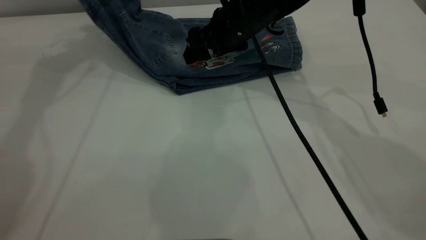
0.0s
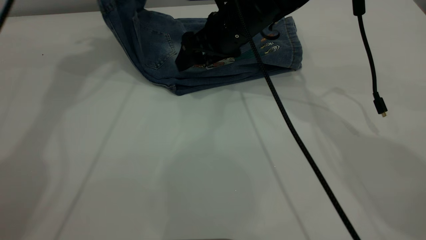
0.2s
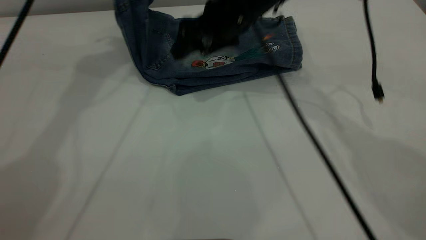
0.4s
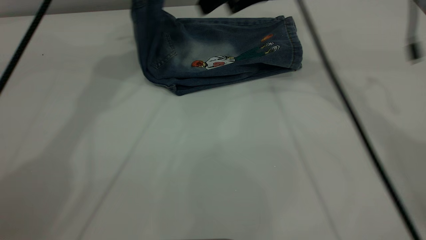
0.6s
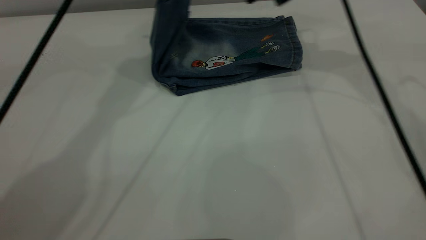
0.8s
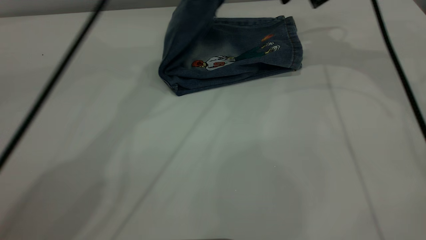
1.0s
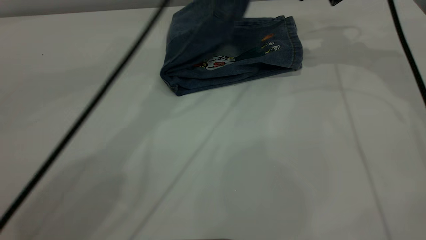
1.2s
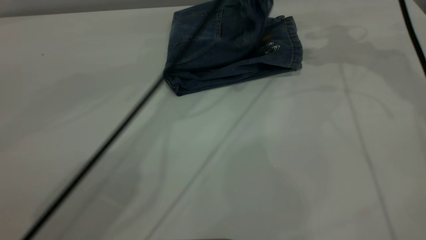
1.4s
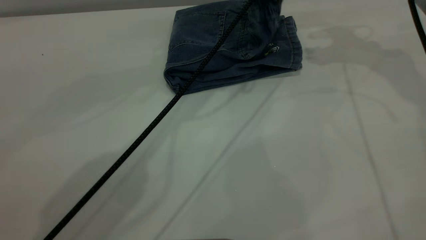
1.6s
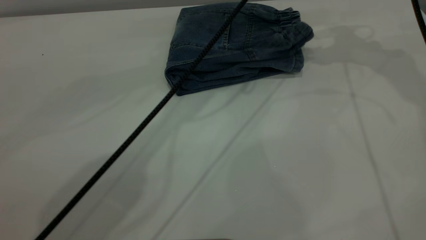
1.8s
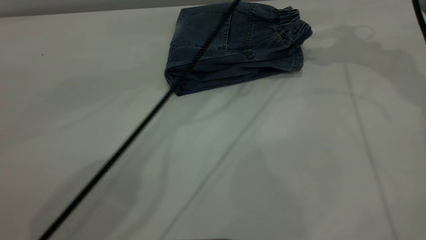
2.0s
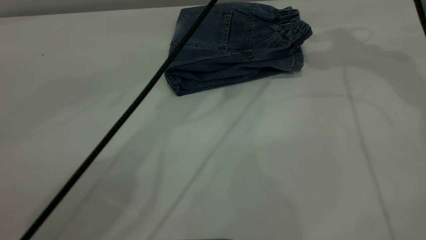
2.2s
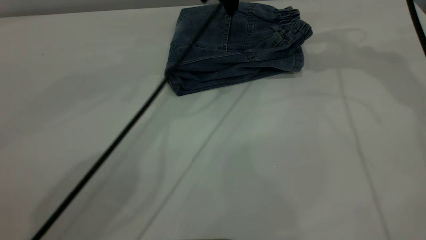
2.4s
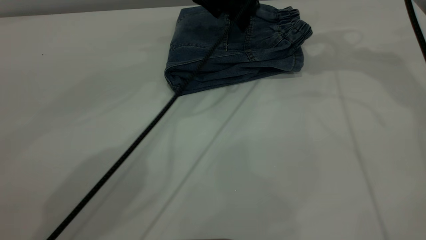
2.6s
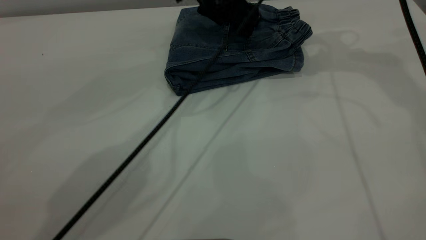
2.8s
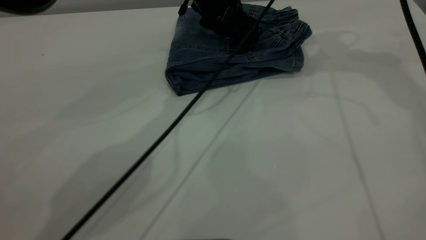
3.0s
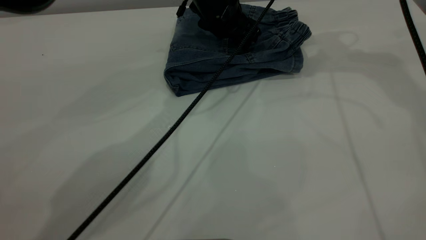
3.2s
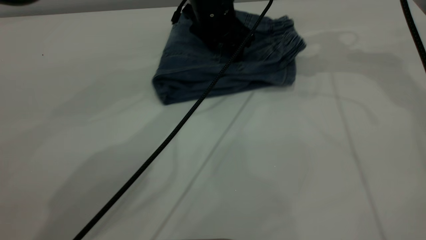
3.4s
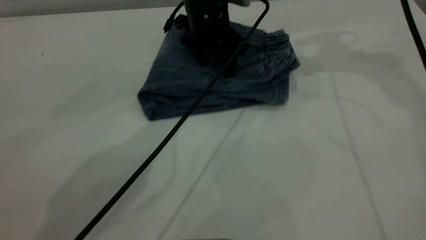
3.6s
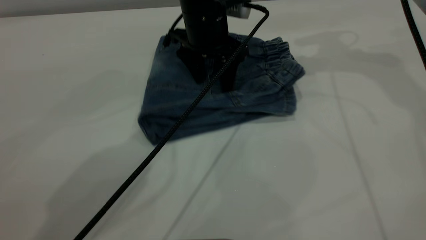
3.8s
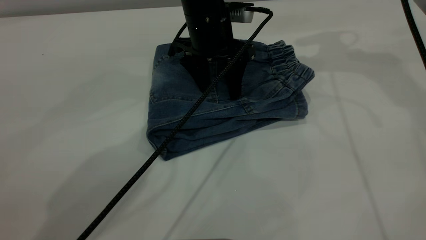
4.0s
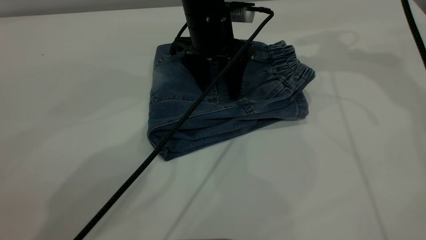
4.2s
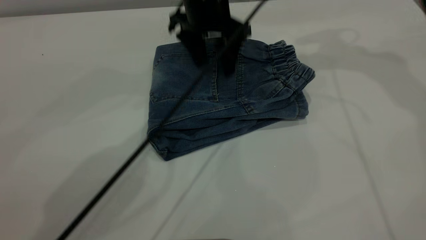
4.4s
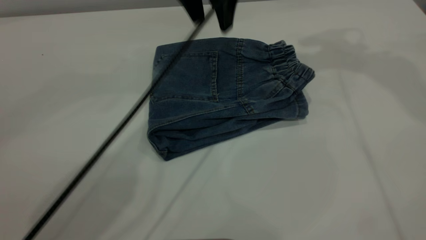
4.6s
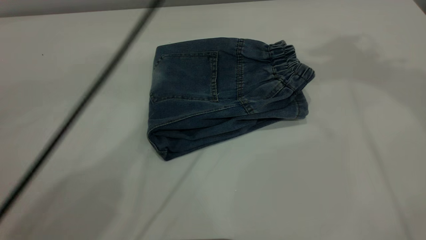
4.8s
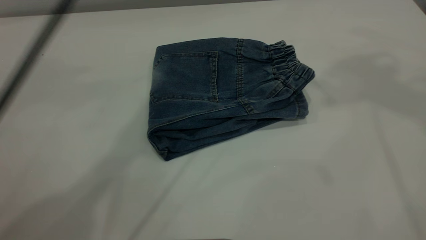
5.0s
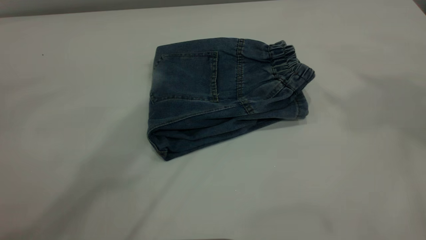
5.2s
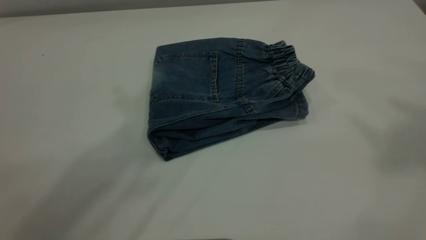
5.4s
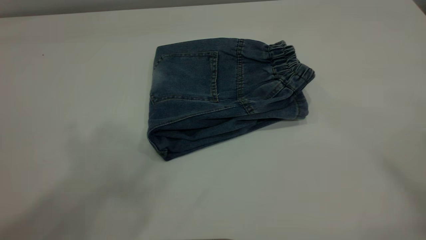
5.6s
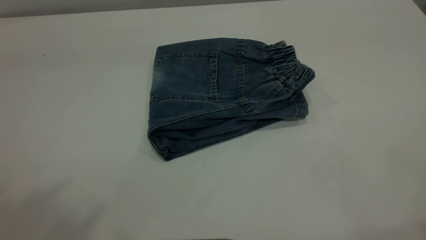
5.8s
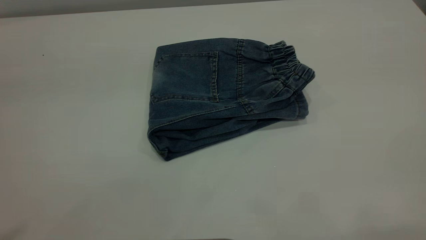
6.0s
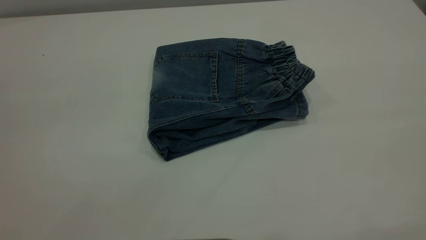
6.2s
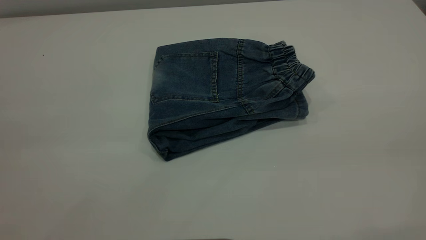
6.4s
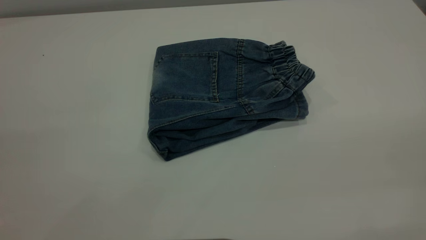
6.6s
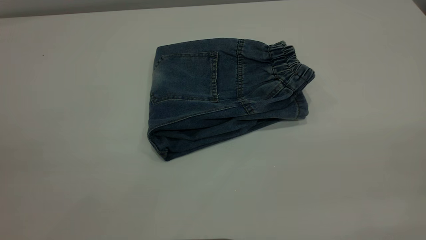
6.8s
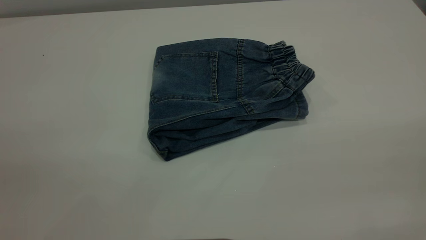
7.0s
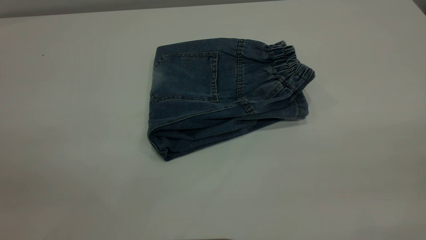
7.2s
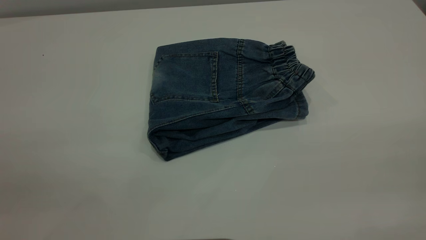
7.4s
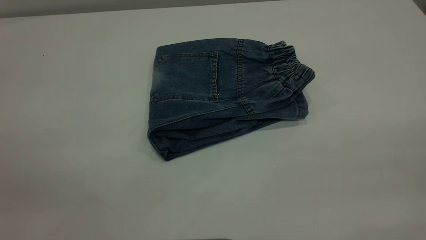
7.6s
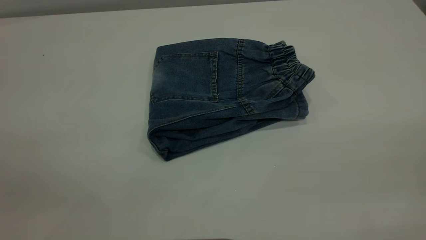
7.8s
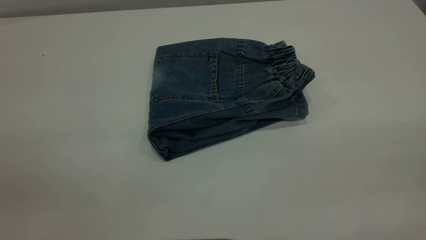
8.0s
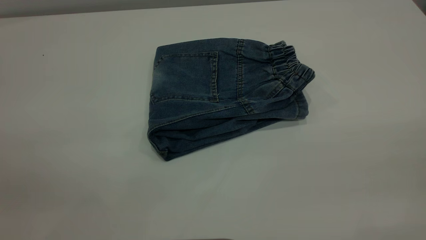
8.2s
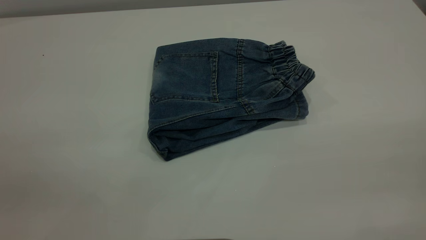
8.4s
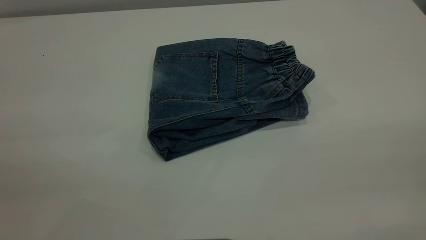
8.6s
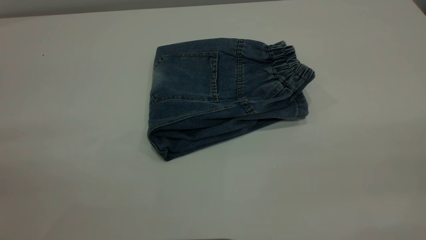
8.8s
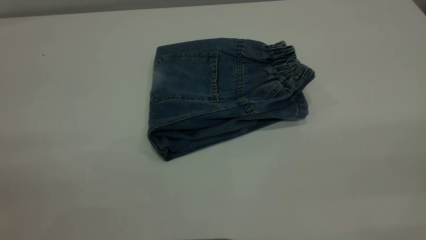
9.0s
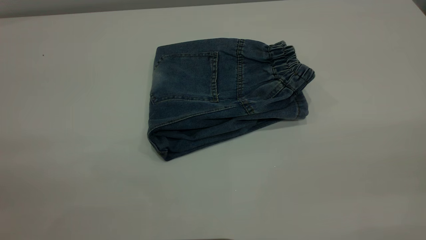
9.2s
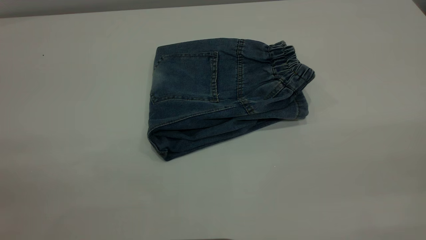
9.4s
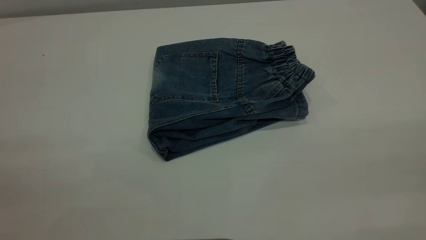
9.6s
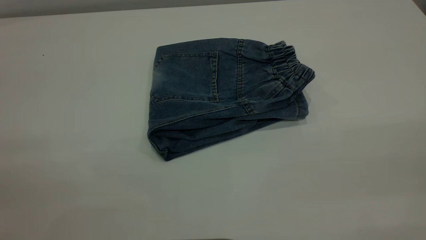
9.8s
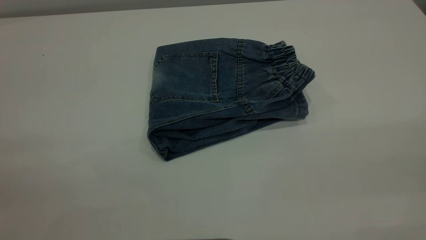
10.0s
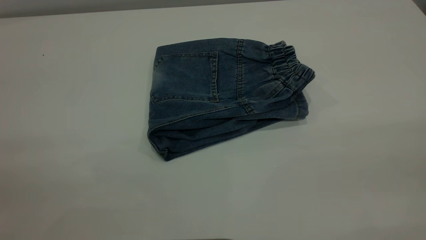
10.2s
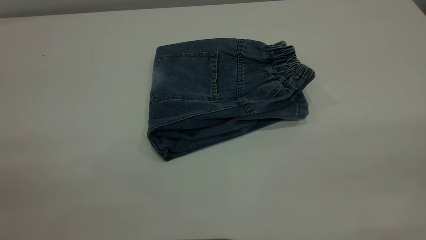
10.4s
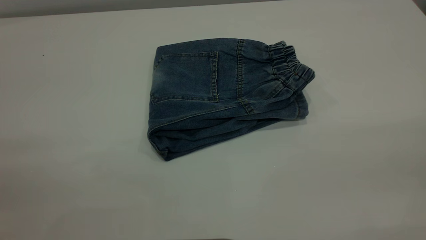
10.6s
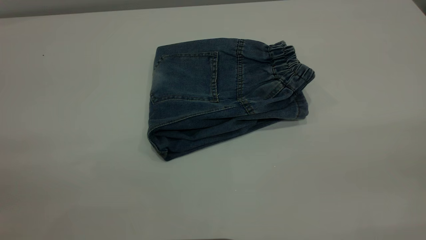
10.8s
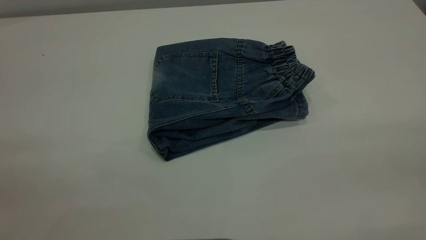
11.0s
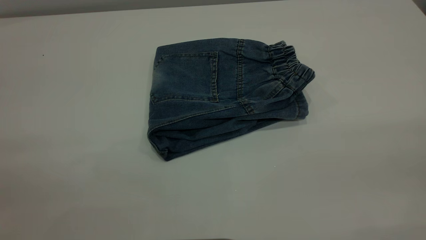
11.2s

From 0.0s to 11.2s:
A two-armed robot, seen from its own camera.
Step, from 0.0s to 2.0s: Fold the pants from left to right.
From 0.0s to 1.6s: The right gripper moves to the right and upward, some 25 cm; the left gripper goes approximately 30 cm to the right.
From 1.6s to 3.2s: The left gripper is displaced downward by about 10 cm, and opens its fingers.
From 3.2s to 4.8s: Both grippers travel together upward, approximately 20 cm.
From 4.8s to 6.4s: The left gripper moves backward and to the left, about 50 cm.

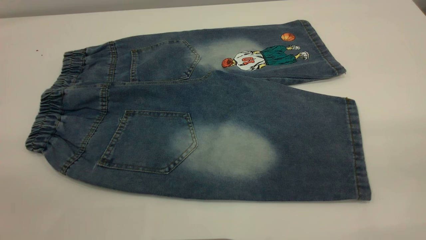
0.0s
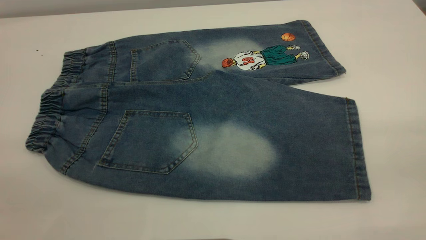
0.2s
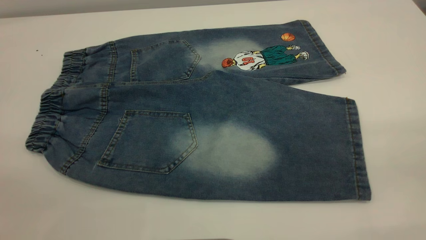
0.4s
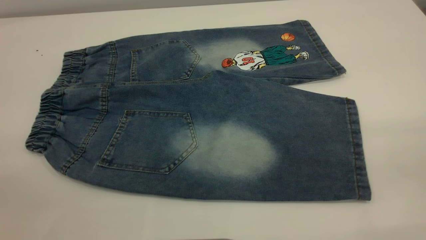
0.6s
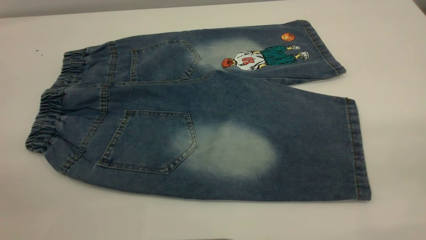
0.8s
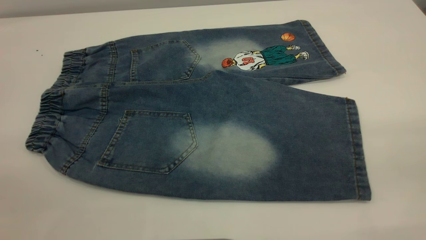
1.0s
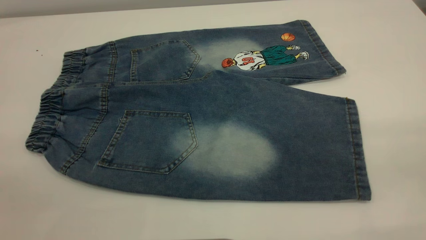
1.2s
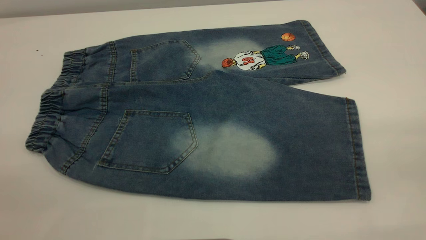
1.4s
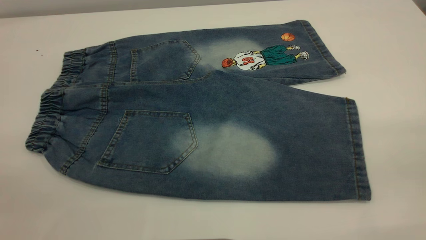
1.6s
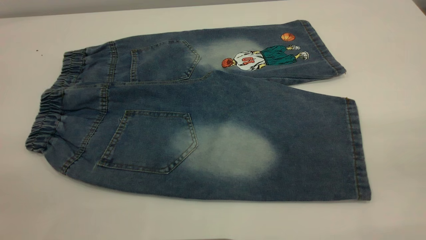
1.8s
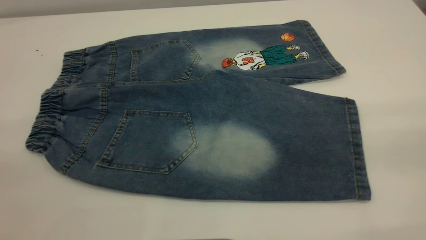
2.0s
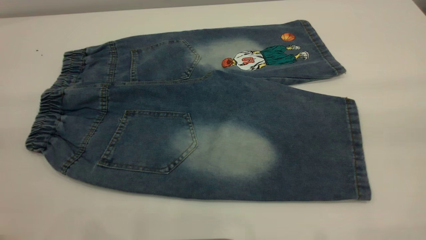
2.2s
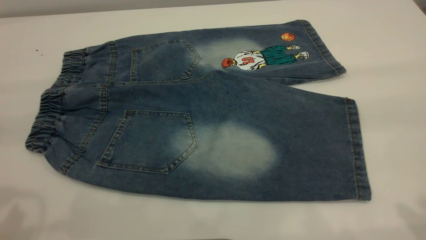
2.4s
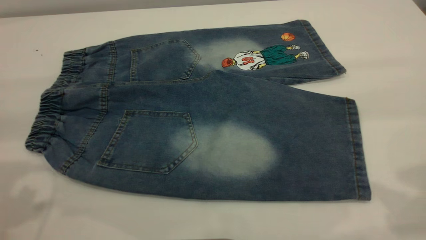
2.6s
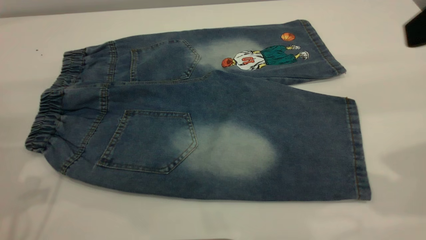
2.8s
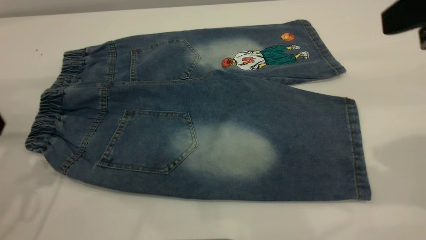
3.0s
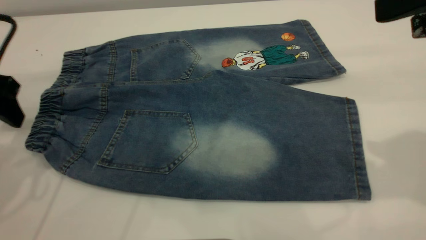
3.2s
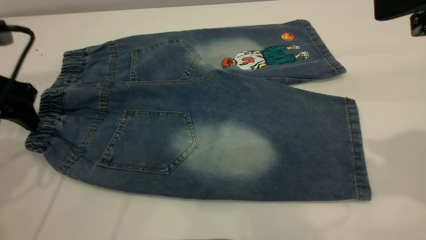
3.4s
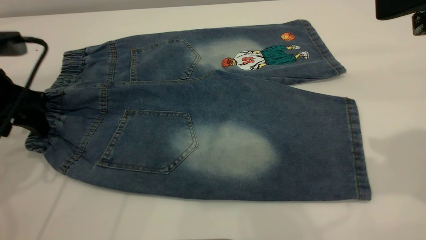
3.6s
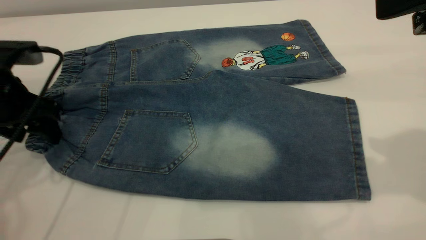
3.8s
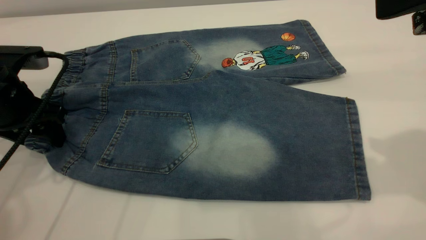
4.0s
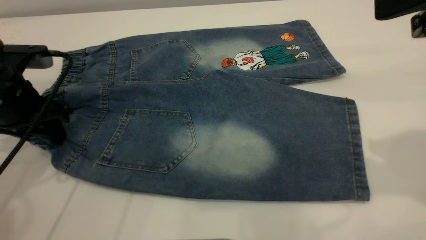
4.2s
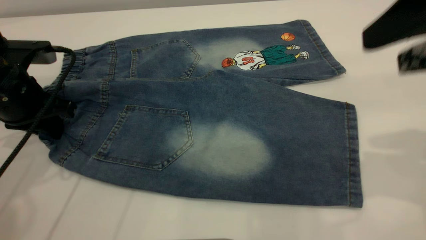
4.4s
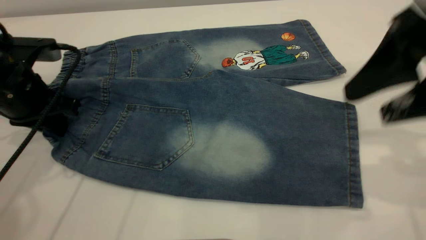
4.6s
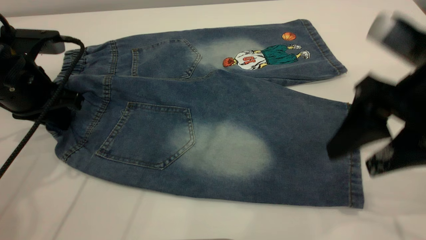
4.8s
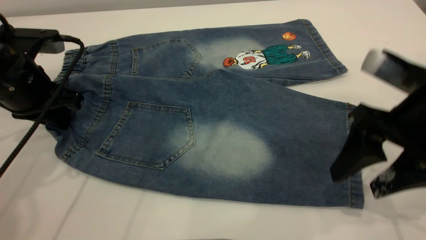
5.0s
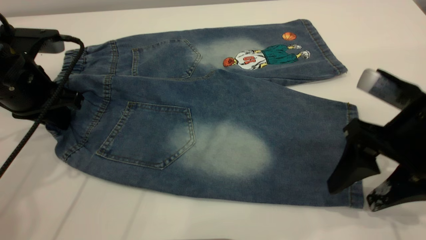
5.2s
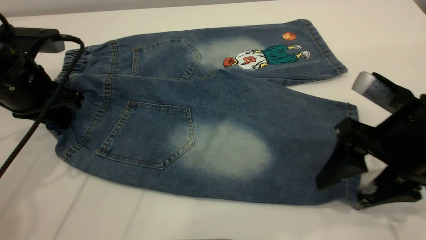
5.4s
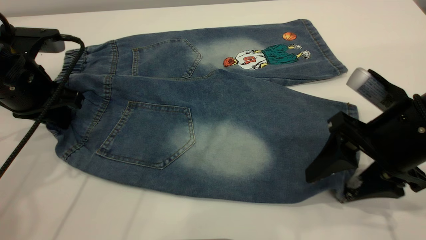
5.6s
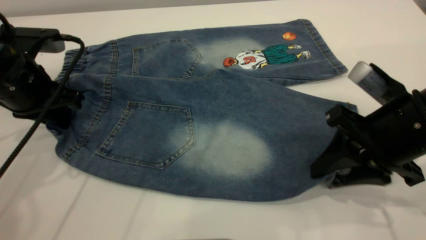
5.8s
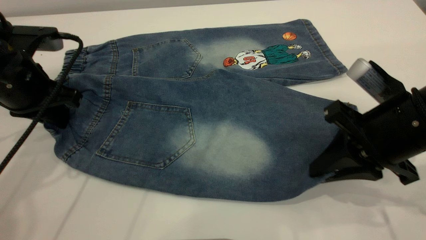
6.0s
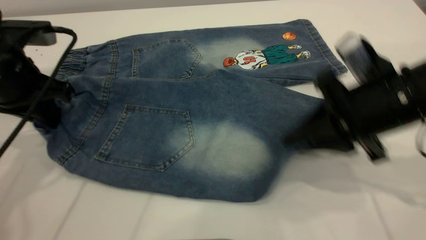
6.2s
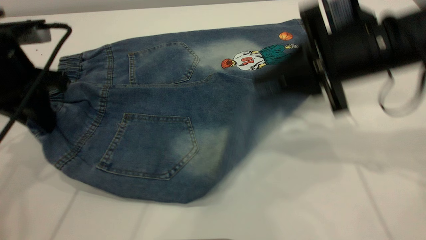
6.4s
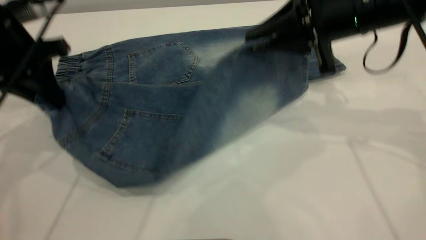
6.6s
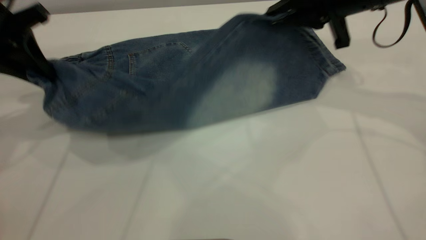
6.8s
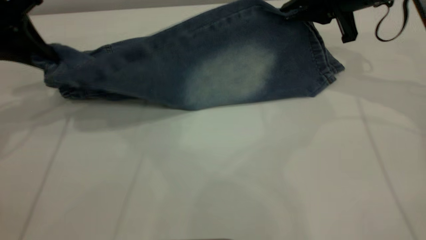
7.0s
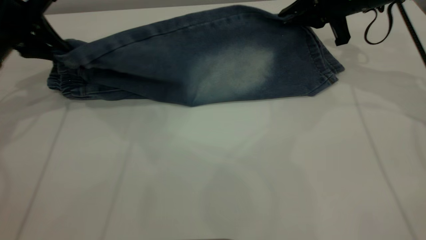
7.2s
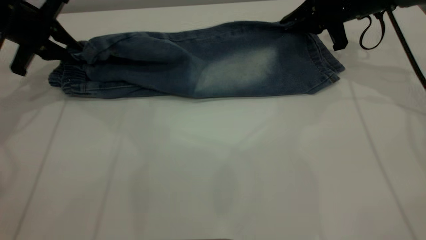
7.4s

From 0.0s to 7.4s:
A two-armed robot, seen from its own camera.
From 0.0s to 1.4s: Both grippers stay about where they are.
From 1.4s to 3.0s: The right gripper shifts roughly 20 cm forward, while the left gripper heads forward and downward, covering approximately 30 cm.
From 3.0s to 4.4s: The left gripper is displaced downward and forward by about 10 cm, and closes up.
From 4.4s to 6.0s: The right gripper moves downward, approximately 15 cm, and closes.
From 6.0s to 7.4s: The left gripper travels forward and to the left by approximately 15 cm, while the right gripper is displaced forward by approximately 25 cm.
